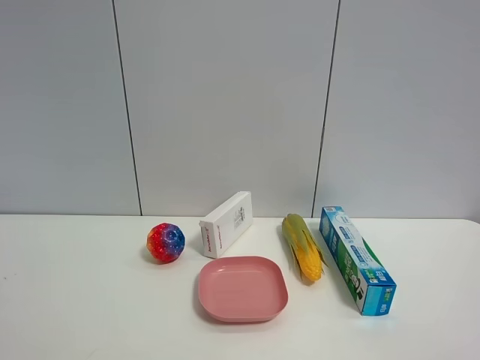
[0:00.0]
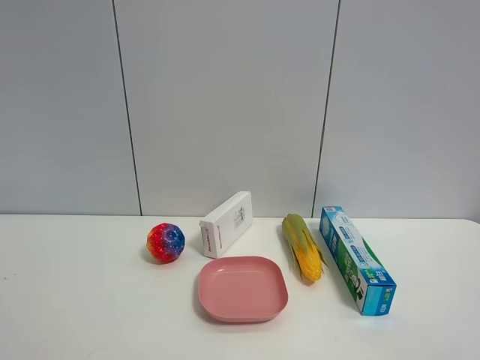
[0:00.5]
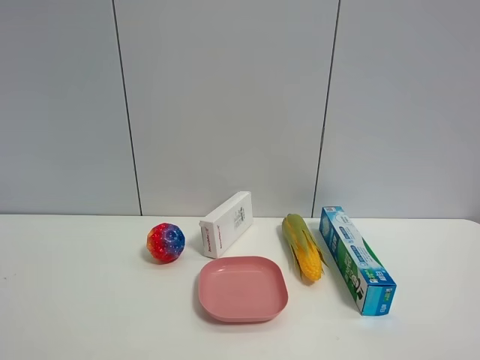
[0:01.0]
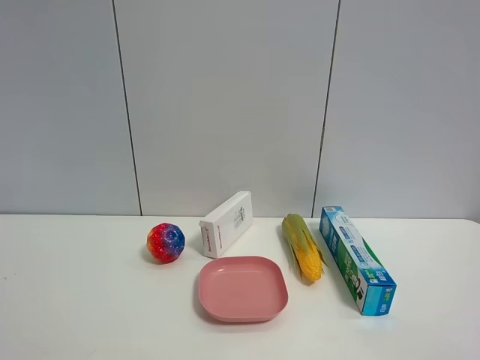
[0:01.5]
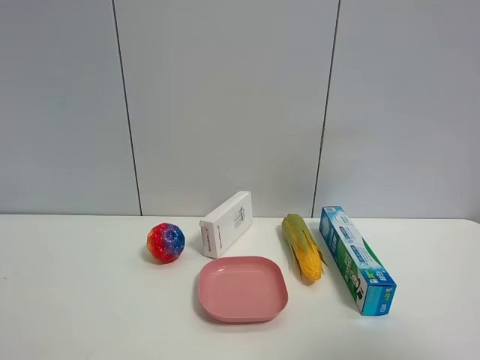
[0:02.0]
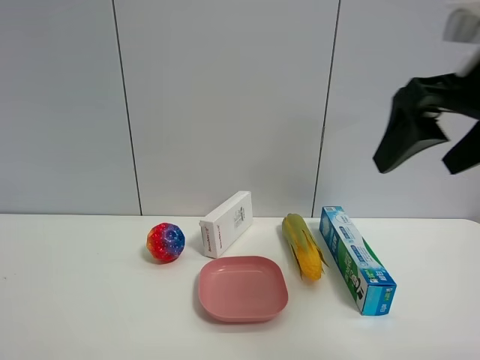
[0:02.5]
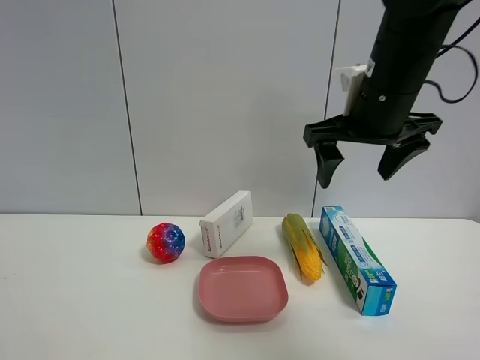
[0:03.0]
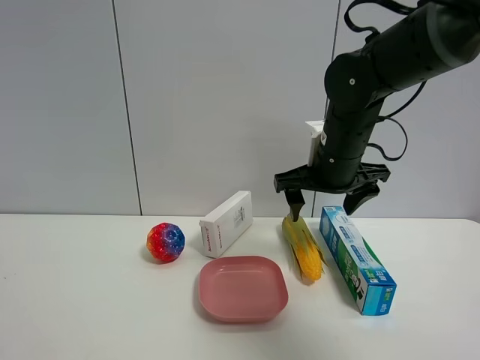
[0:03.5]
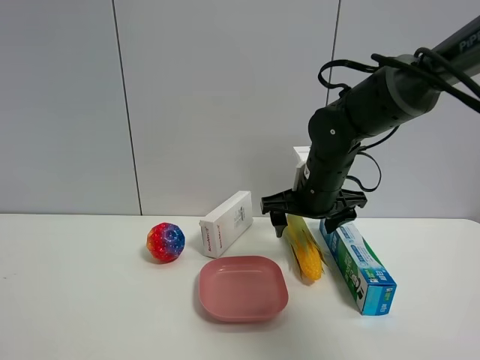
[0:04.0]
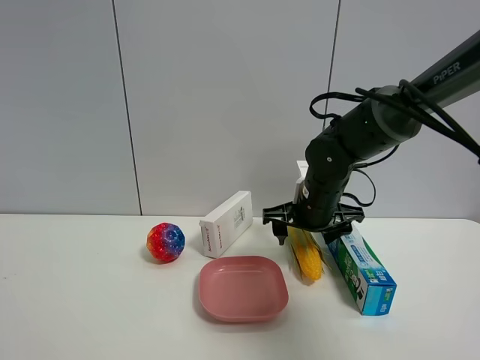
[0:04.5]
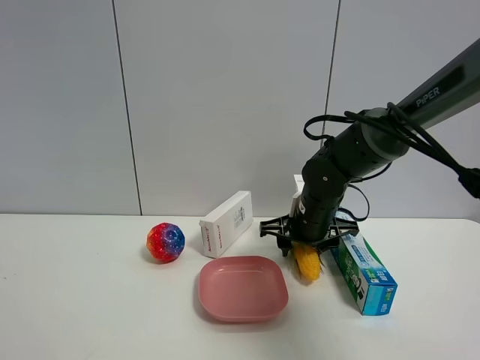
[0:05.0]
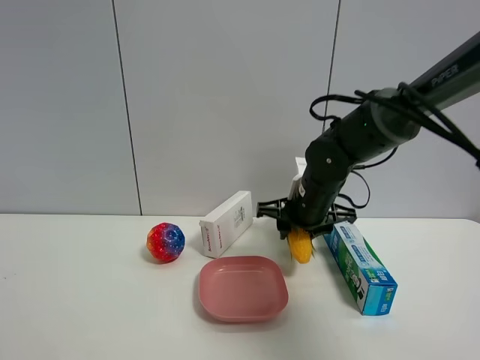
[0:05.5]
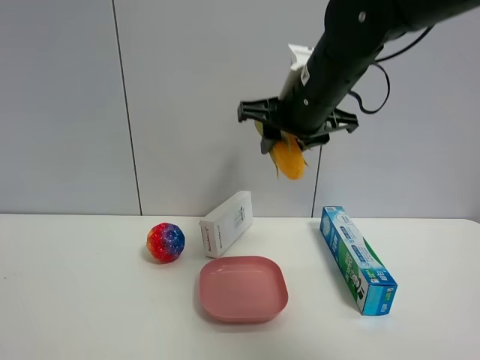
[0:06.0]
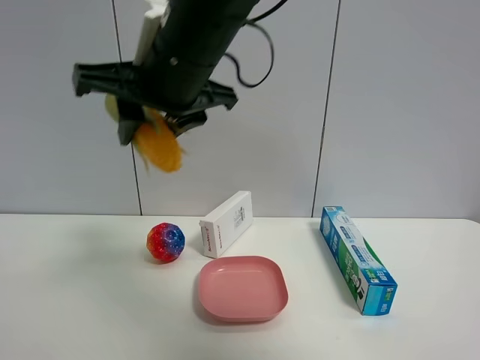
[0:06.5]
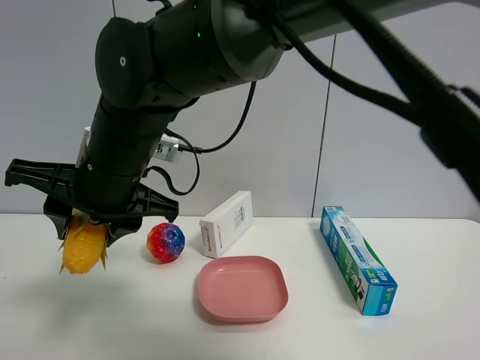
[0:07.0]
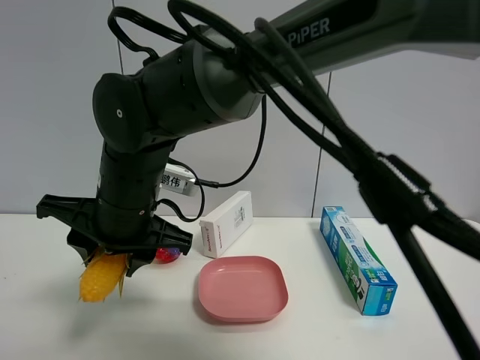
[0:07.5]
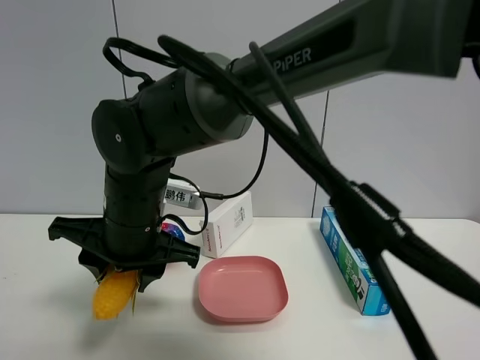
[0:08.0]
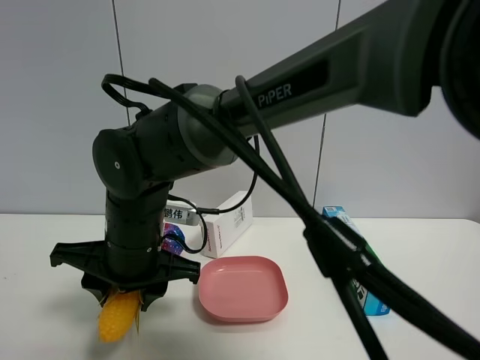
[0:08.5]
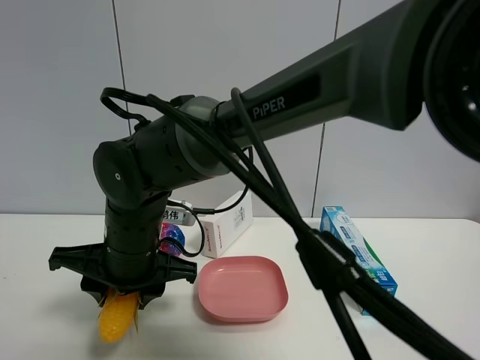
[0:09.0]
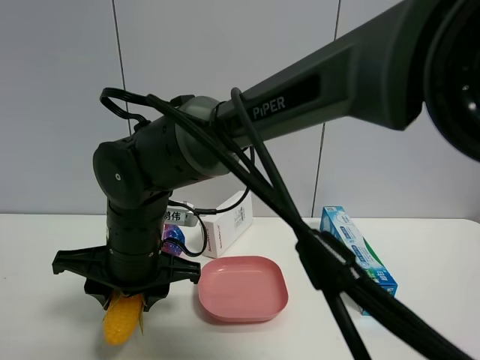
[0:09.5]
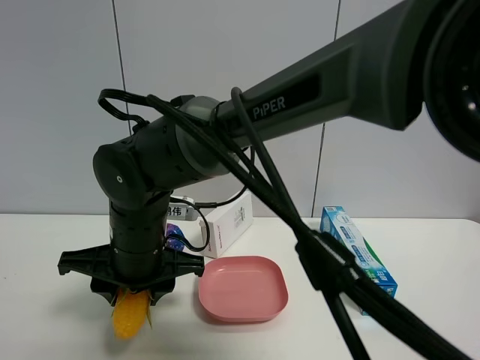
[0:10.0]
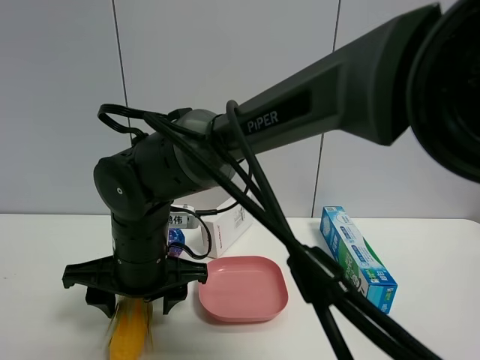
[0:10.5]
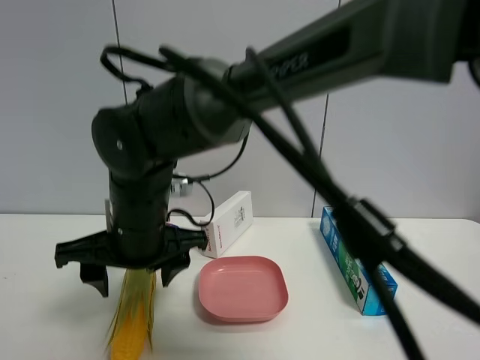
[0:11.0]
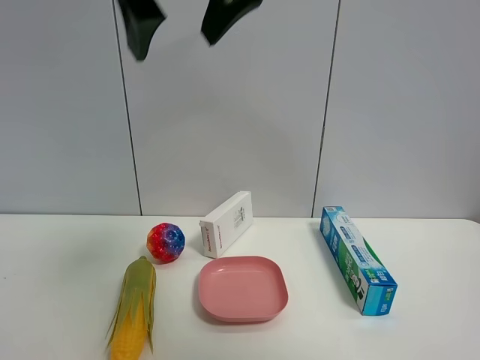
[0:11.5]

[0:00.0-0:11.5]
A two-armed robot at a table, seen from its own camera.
Task of the whole recording: the gripper move the object.
Step, 0:00.0 to 0:05.0: Grasp the corn with the right gripper.
Step, 0:05.5 to 0:10.5: Place the corn on the table with the right gripper.
0:00.0 to 0:02.0: The right gripper heads upward and forward, covering some 10 cm.
0:02.0 to 0:04.0: The right gripper goes approximately 40 cm forward, downward and to the left.
0:04.0 to 0:06.0: The right gripper moves upward, some 15 cm, and closes.
0:06.0 to 0:07.5: The right gripper moves to the left and downward, roughly 20 cm.
0:07.5 to 0:09.5: The right gripper shifts about 5 cm downward.
0:09.5 to 0:11.5: The right gripper shifts some 30 cm upward, and opens its fingers.

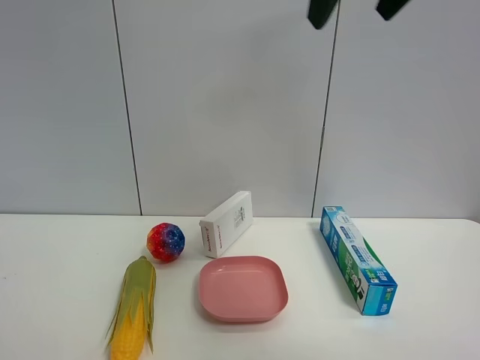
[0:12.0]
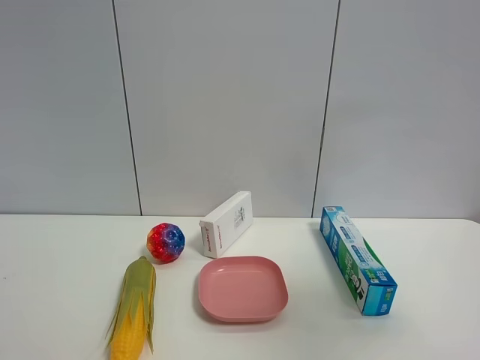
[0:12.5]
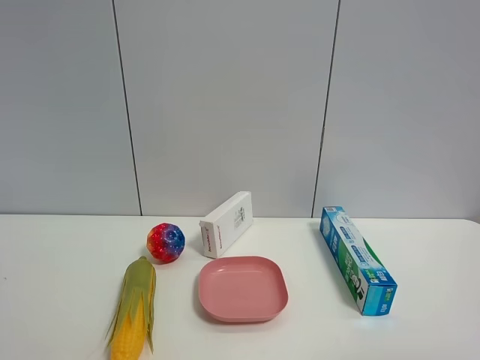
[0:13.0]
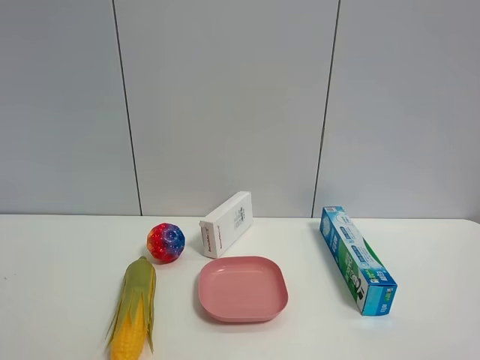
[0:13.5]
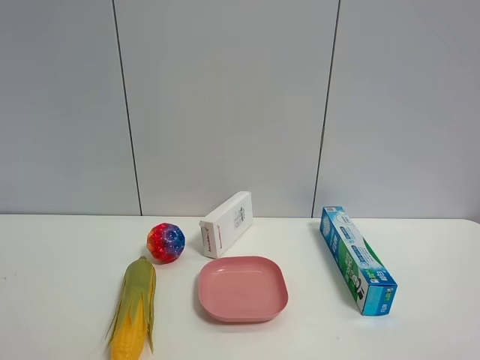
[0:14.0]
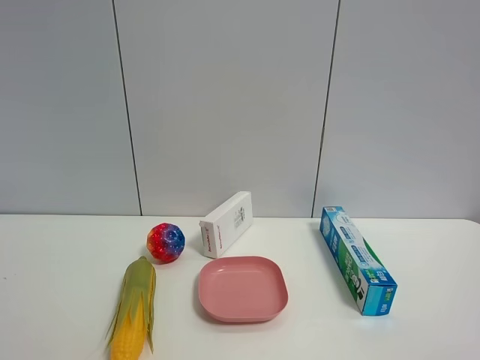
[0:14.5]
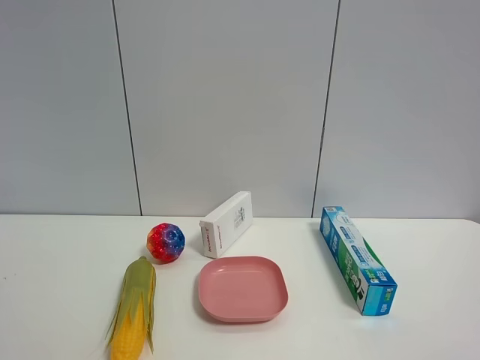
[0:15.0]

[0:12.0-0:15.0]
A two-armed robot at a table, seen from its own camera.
Task of the whole recording: the gripper move the object.
0:12.0 to 0:13.5: The right gripper heads backward, downward and to the right, covering approximately 35 cm.
0:13.5 to 0:15.0: The two grippers keep their place.

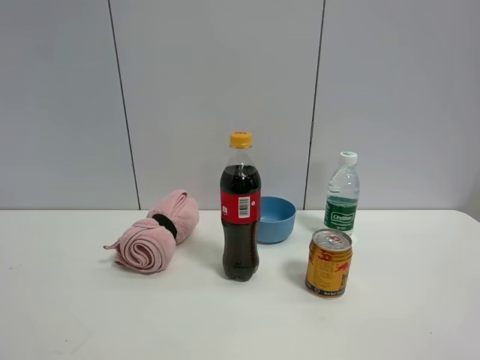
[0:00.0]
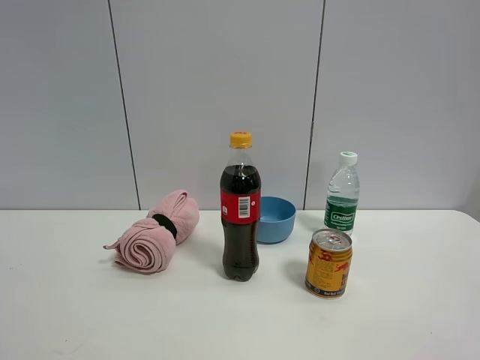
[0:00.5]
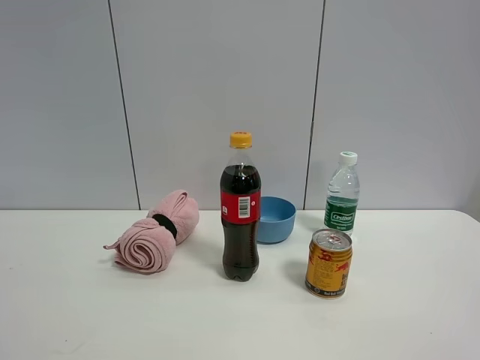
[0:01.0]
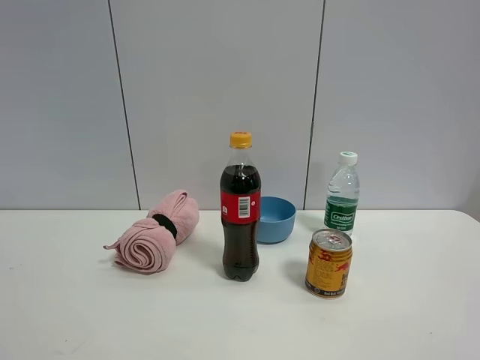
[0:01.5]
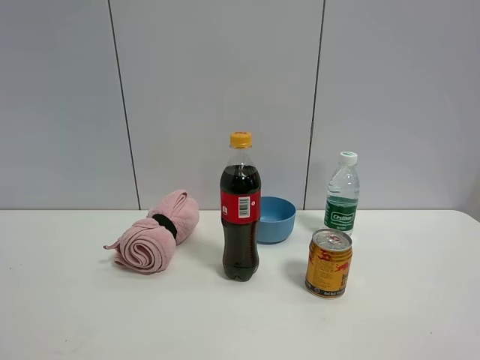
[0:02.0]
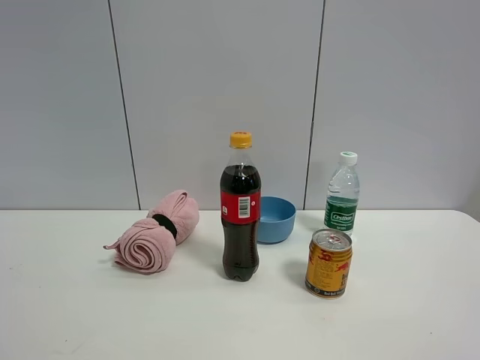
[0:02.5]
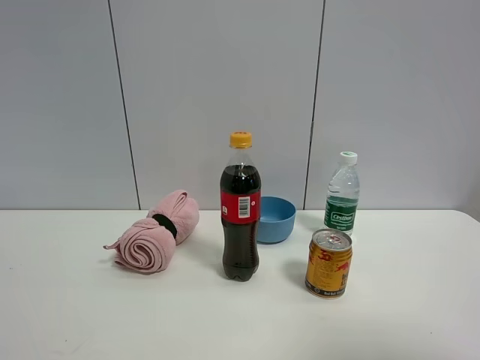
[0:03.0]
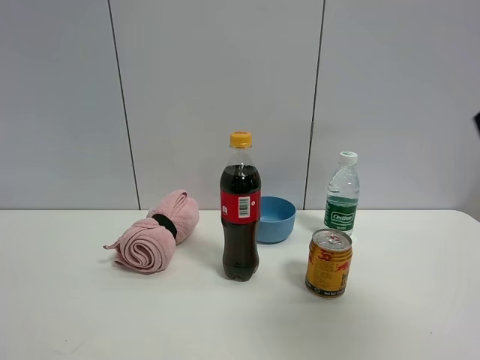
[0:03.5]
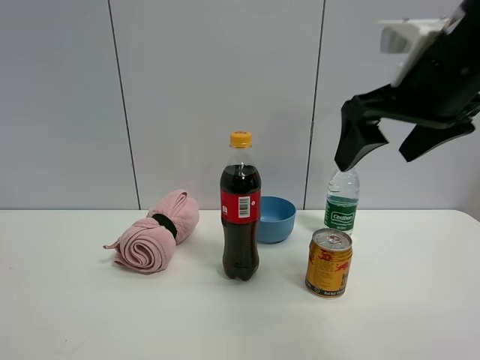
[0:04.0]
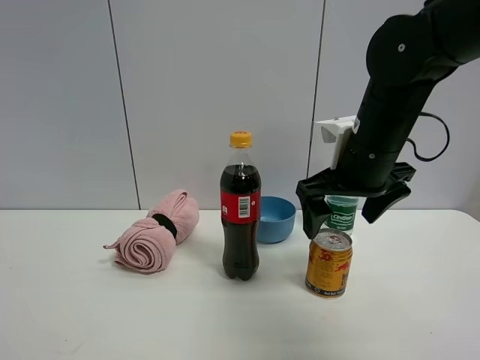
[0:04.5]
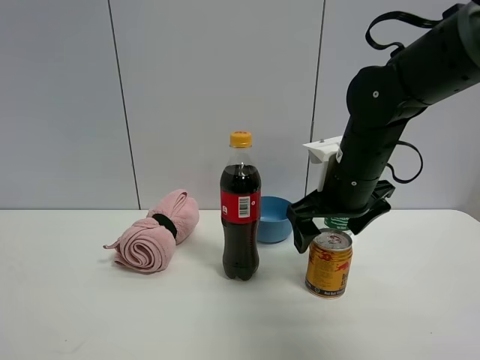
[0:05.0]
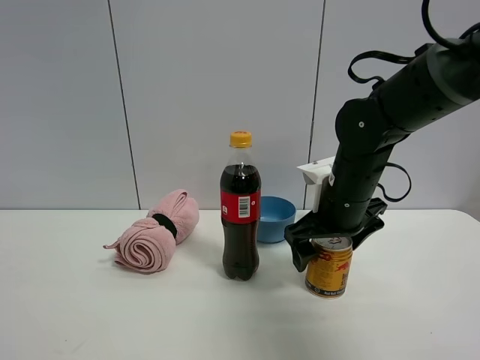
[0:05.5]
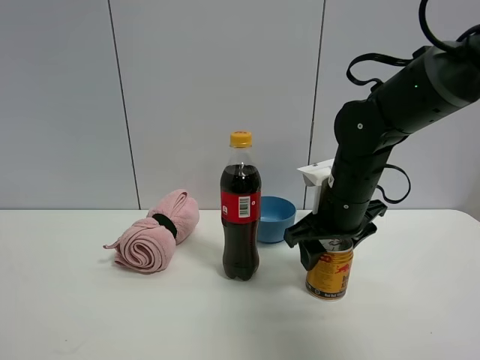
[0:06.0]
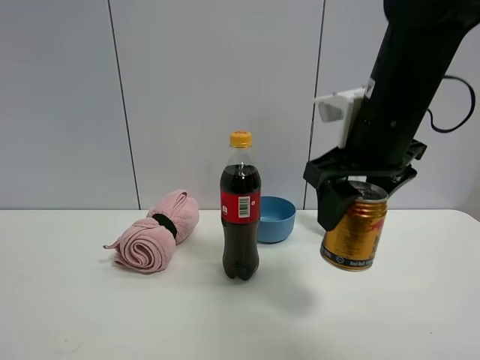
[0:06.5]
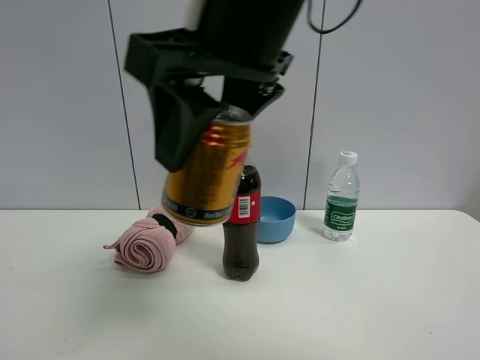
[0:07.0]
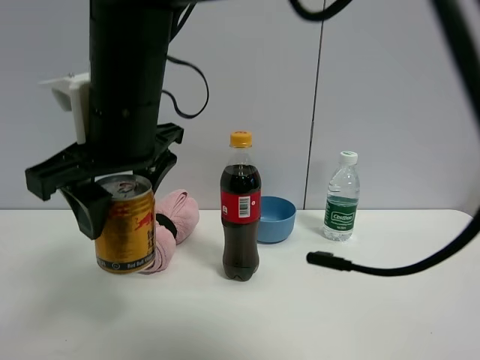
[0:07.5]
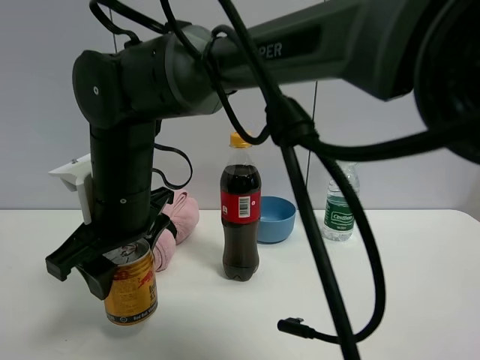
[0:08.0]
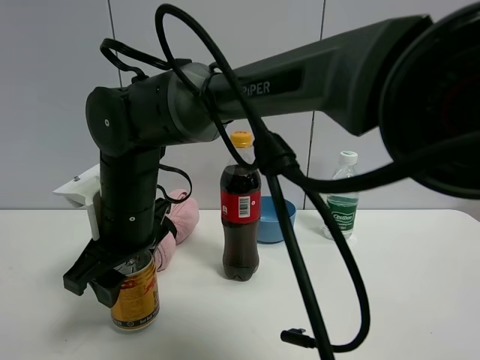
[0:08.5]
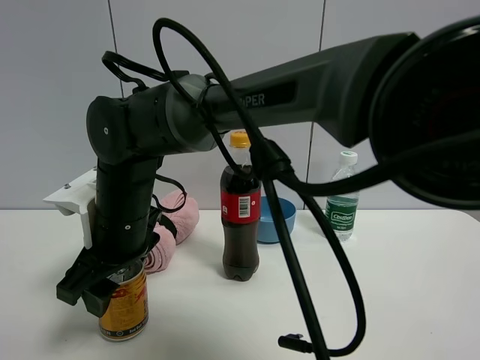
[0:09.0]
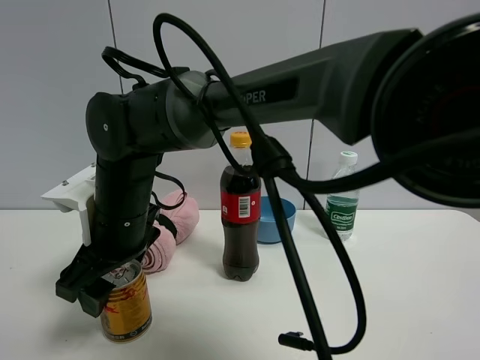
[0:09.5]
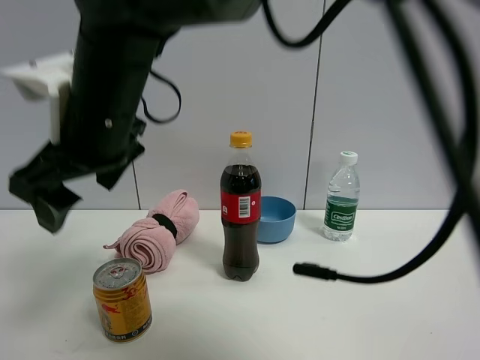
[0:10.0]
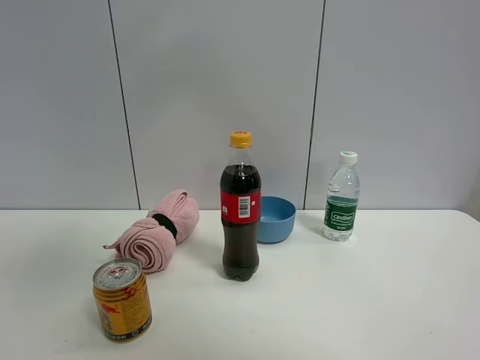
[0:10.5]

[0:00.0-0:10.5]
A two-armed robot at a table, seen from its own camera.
Task of the whole recording: the gripper move the object.
Step, 0:00.0 to 0:05.5: Grasp the red bull with the right gripper.
Step, 0:06.0 to 0:09.5: Place the red bull on the table with the right gripper.
0:02.0 to 0:04.0: The right gripper goes approximately 30 cm forward and to the left, and opens its fingers.
0:04.0 to 0:06.5: The right gripper moves to the left, roughly 5 cm, reaches approximately 15 cm downward, then returns, and closes up.
0:06.5 to 0:08.5: The right gripper heads to the left and downward, covering about 30 cm.
0:08.5 to 0:10.5: The right gripper shifts approximately 30 cm upward, and opens up.
